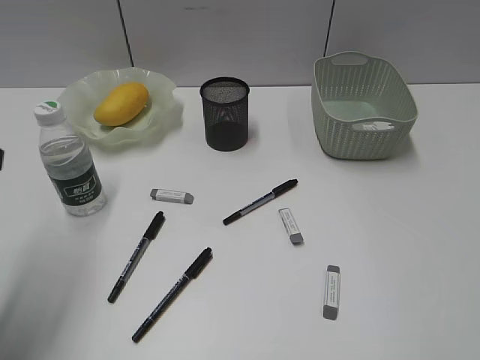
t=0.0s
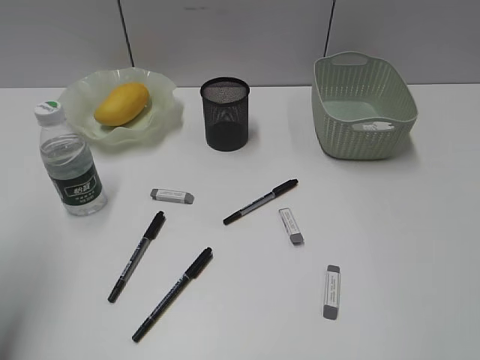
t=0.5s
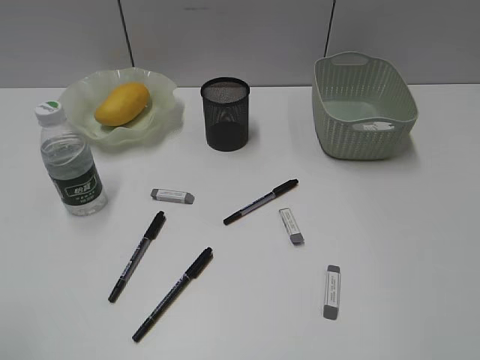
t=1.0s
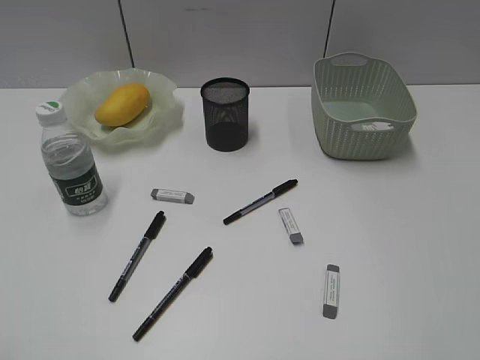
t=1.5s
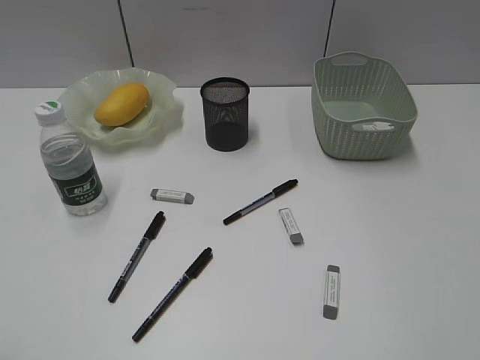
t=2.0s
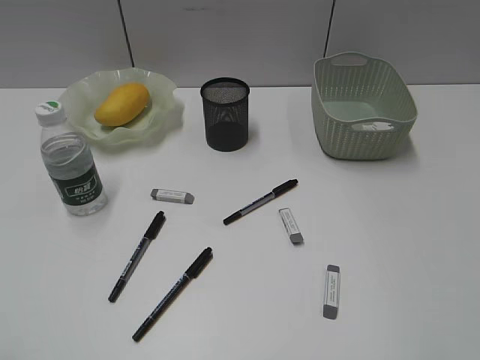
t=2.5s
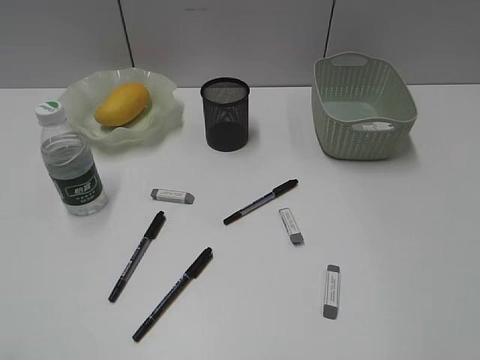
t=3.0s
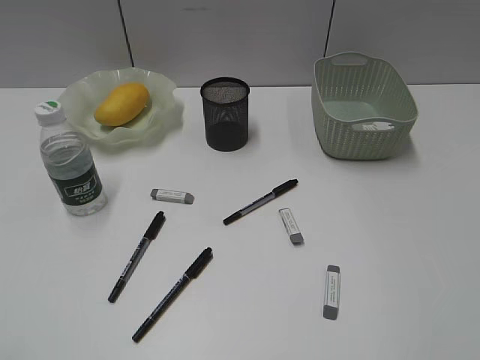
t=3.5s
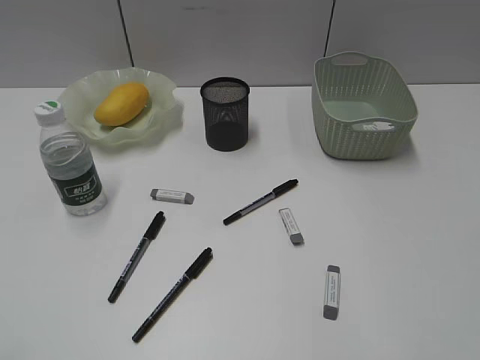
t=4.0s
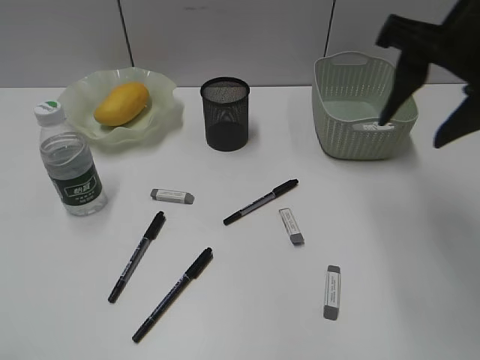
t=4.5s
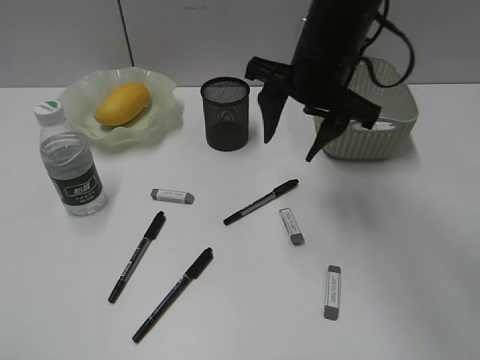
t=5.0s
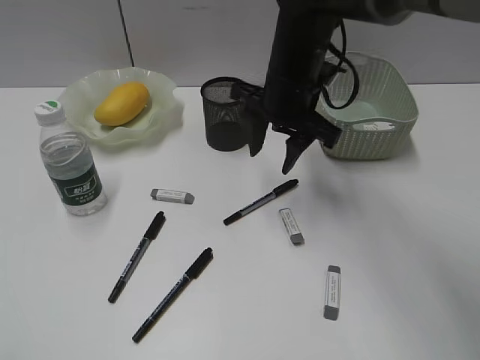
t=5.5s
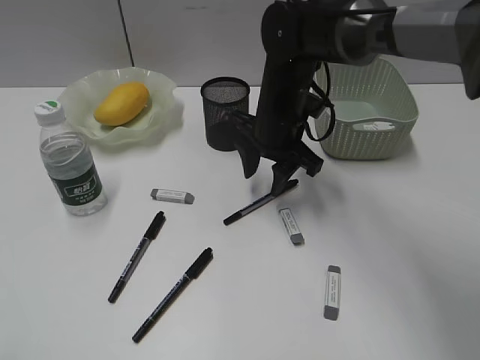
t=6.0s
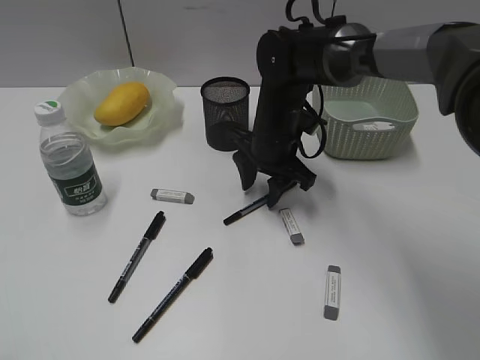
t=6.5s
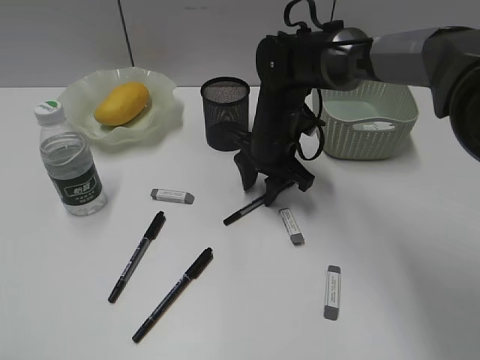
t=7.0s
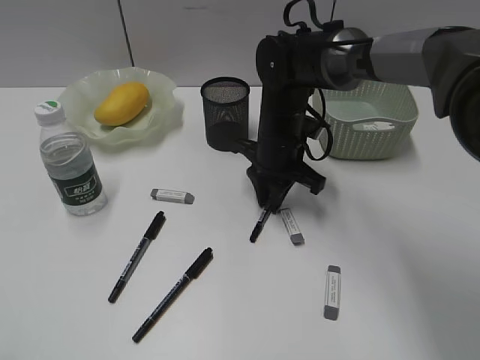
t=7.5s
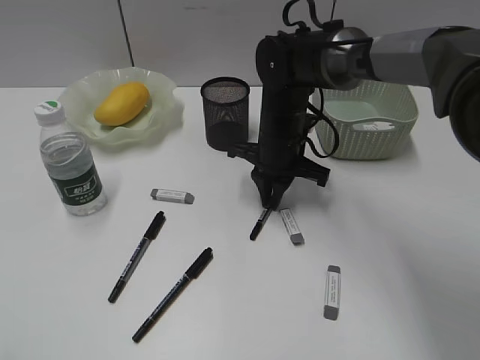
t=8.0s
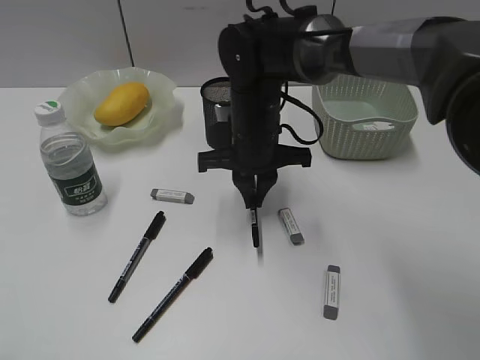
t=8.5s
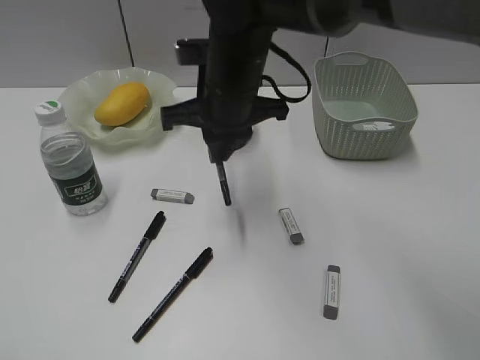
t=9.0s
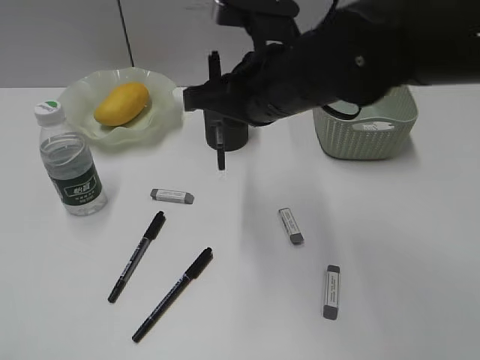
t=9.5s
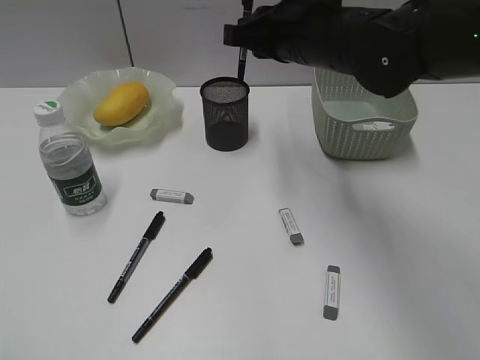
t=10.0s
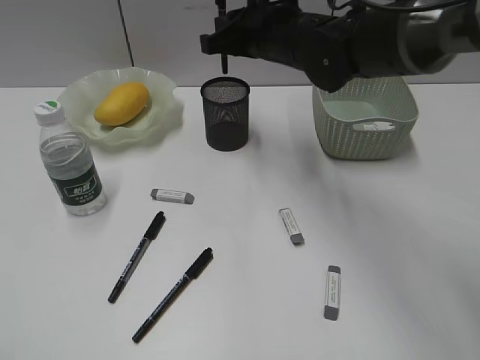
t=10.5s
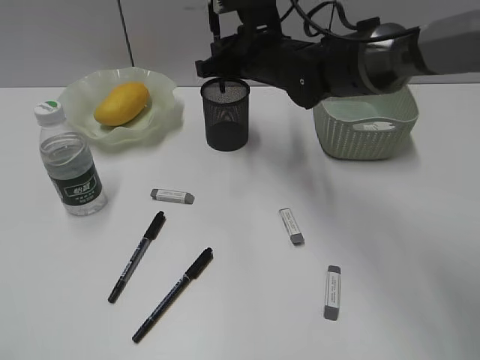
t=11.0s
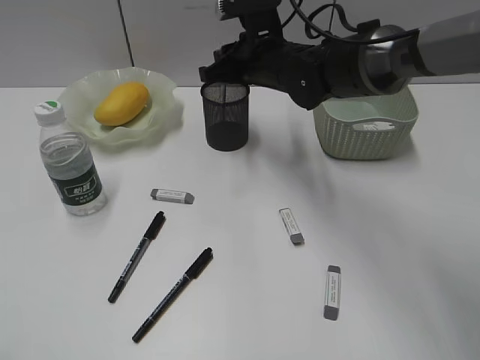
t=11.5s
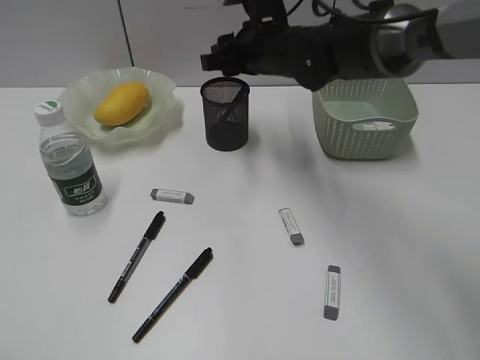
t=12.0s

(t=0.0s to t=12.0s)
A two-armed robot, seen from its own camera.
Step, t=0.0s - t=7.5s: Grasp the black pen with right gripper.
Step, t=8.0s - t=11.5s: Place the black pen in pen holder with right gripper.
t=0.0s - t=2.0s: The left gripper heads backward, covering roughly 20 cm.
t=4.0s - t=6.0s: The right gripper is displaced to the left, forward and downward by about 40 cm.
t=6.0s - t=8.0s: The right gripper closes its fingers.
t=8.0s - t=10.0s: The right gripper goes some 15 cm upward.
t=10.0s - t=12.0s: The right gripper goes roughly 10 cm forward and downward, and opens up.

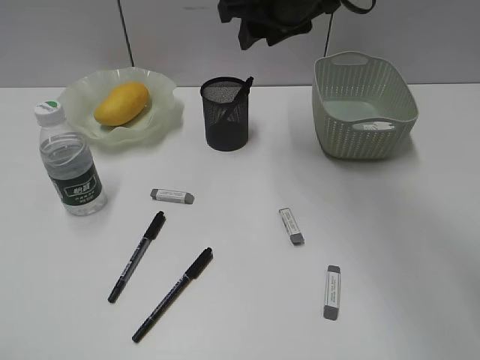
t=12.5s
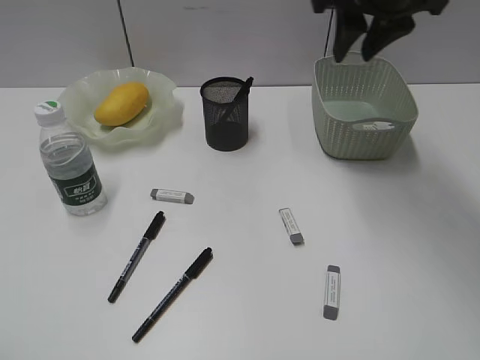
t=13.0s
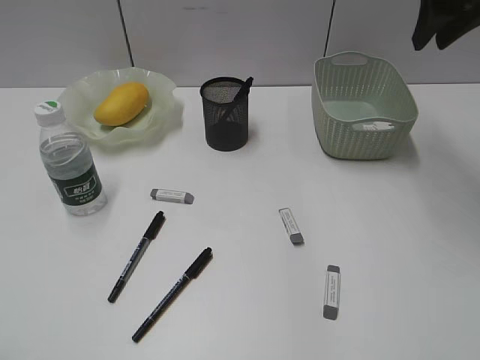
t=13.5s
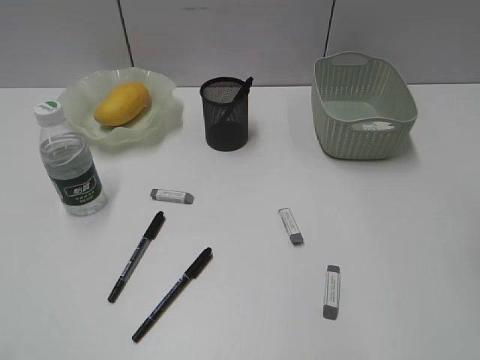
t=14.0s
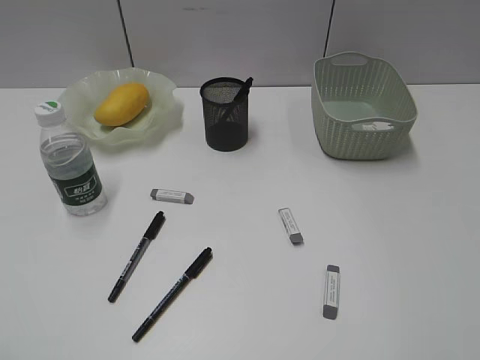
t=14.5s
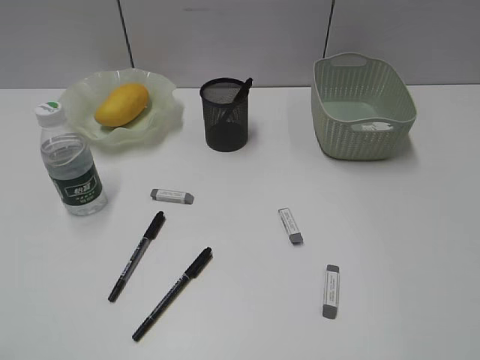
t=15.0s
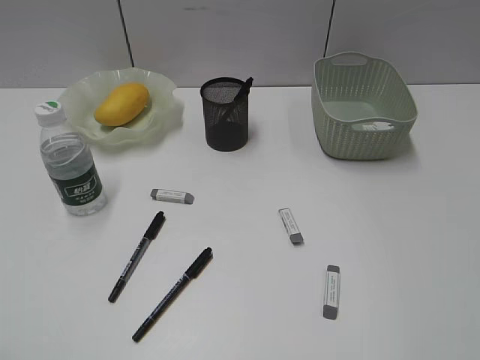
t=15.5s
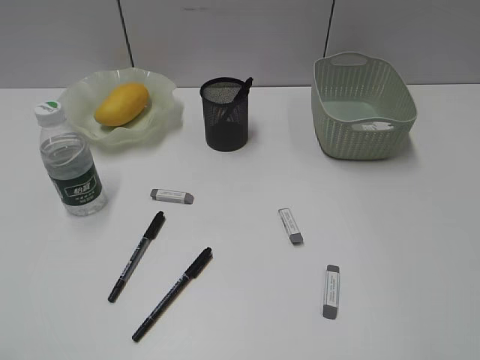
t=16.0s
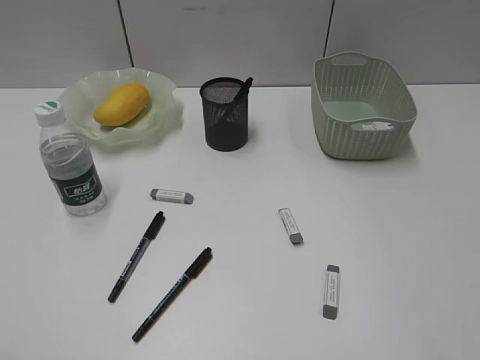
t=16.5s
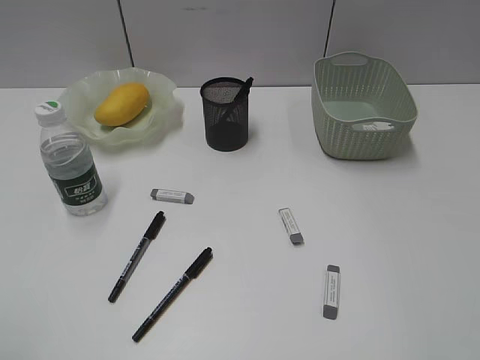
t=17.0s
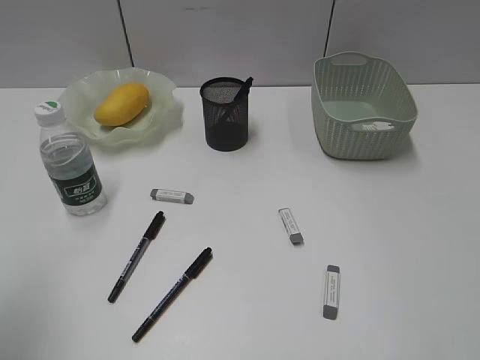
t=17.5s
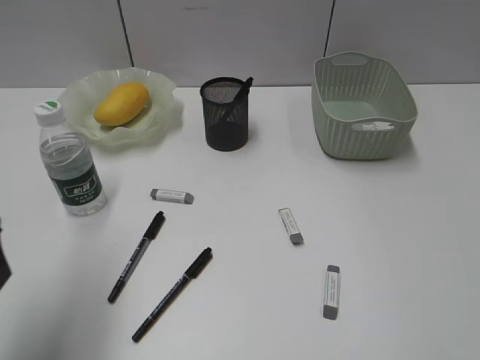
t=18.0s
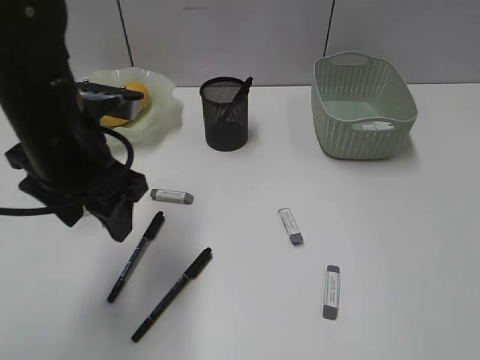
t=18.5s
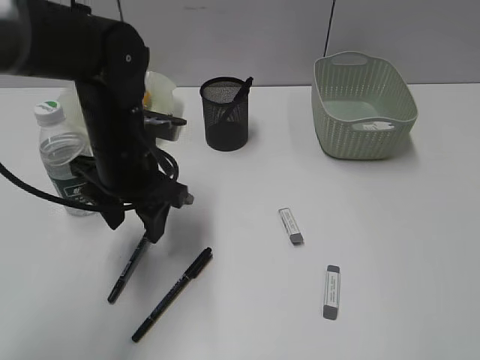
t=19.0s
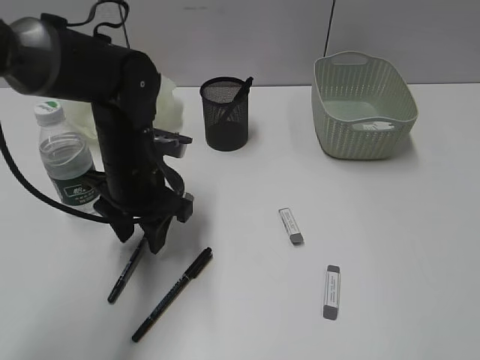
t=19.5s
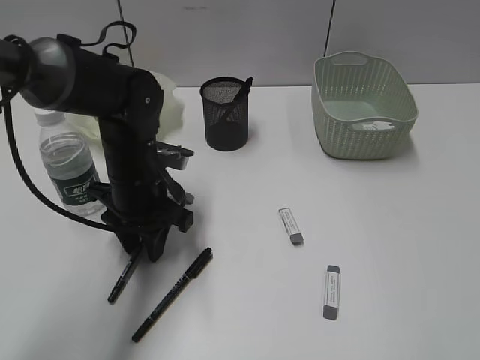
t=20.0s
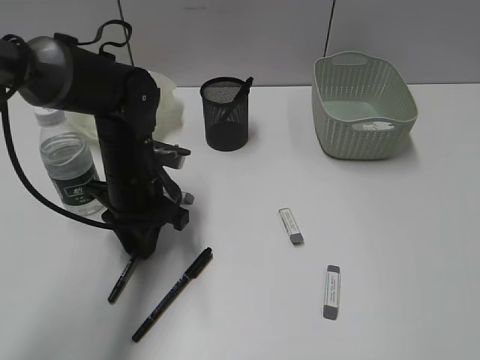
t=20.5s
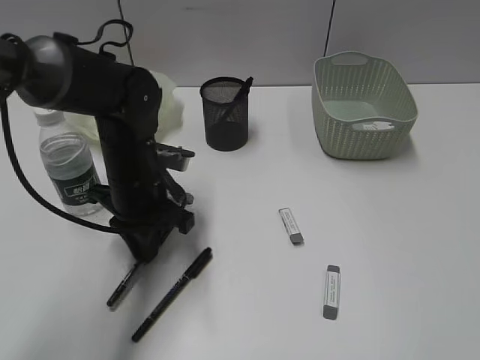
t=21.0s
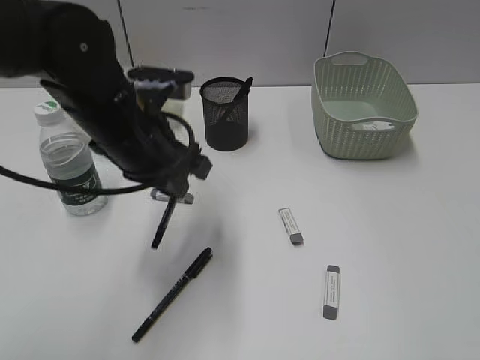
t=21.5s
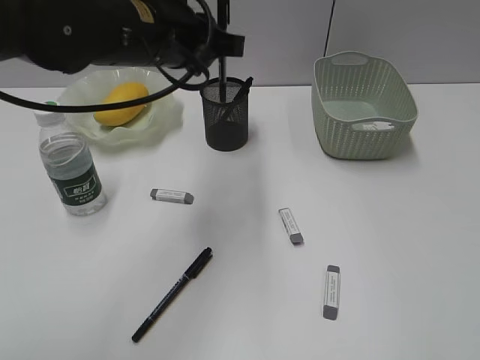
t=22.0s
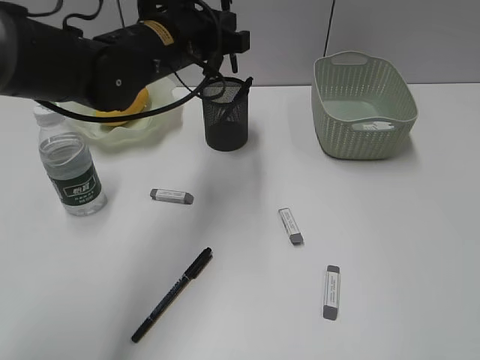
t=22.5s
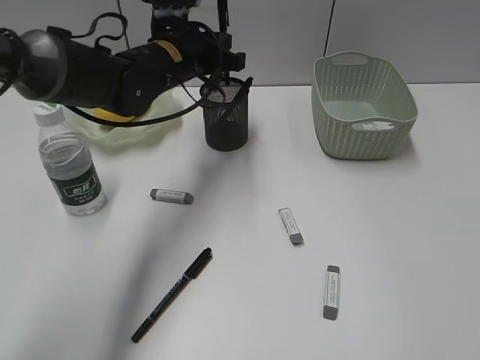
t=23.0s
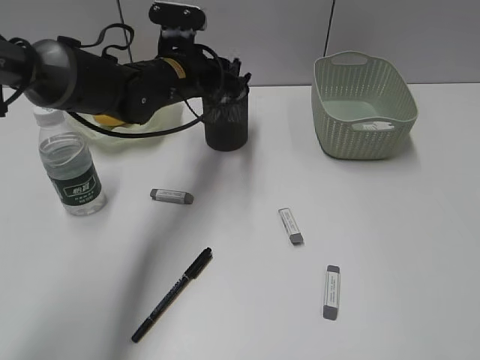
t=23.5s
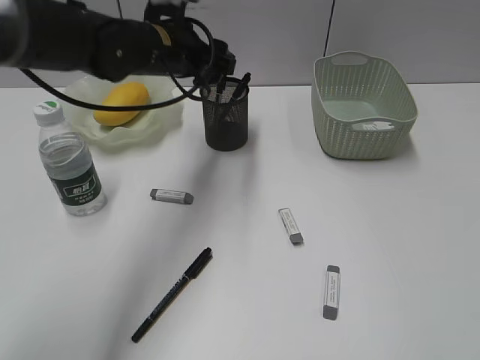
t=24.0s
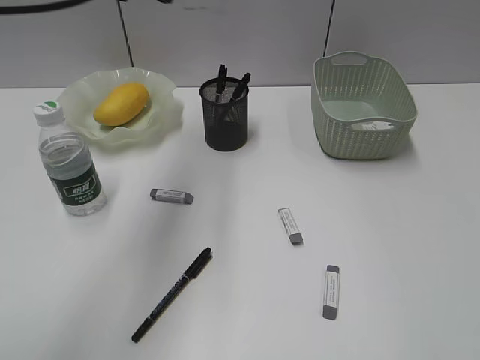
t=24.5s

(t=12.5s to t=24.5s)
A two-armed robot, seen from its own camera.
Step, t=12.5s - t=20.5s: Grasp the black pen with left gripper.
Step, t=21.0s - t=23.5s: Place the black pen in pen holder with left gripper.
t=12.5s - t=14.5s: The right gripper heads backward and to the right, covering approximately 40 cm.
t=16.5s - t=18.5s: The left gripper goes some 30 cm forward and to the right, and opens up.
t=18.5s - t=20.5s: The left gripper is displaced downward and forward by approximately 15 cm, and closes.
t=20.5s - t=22.5s: The left gripper is displaced upward by some 15 cm.
t=22.5s - t=24.5s: The left gripper shifts approximately 10 cm upward and to the left, and opens its fingers.

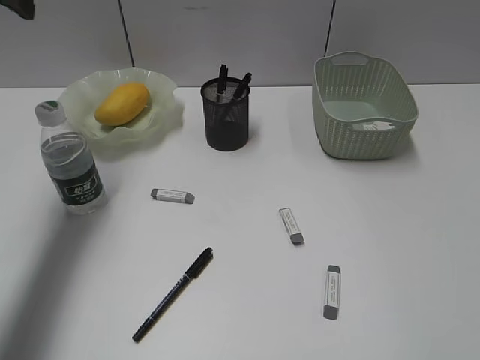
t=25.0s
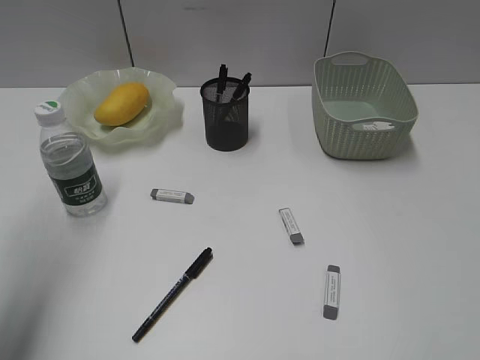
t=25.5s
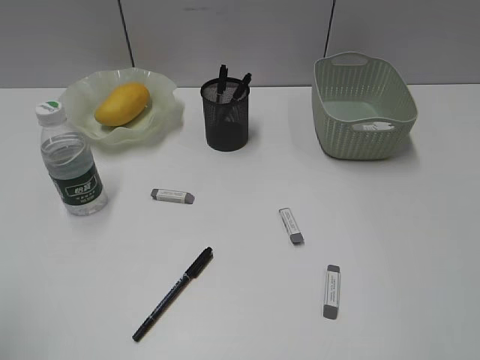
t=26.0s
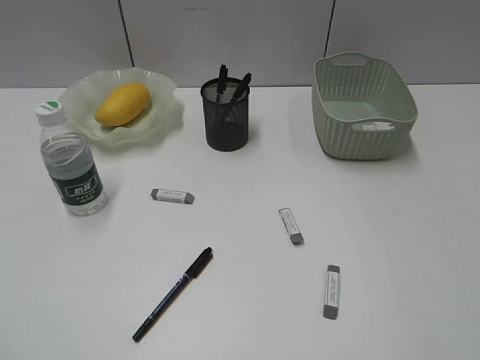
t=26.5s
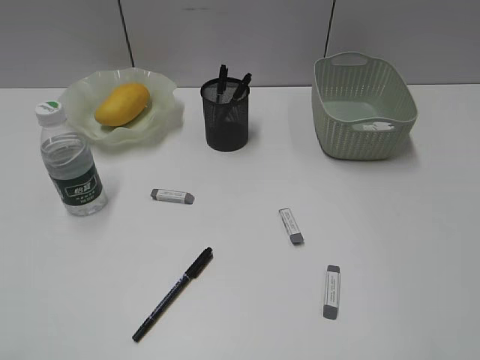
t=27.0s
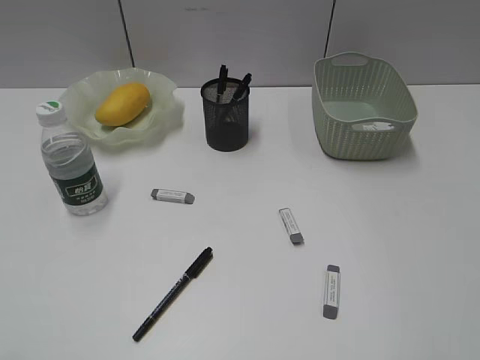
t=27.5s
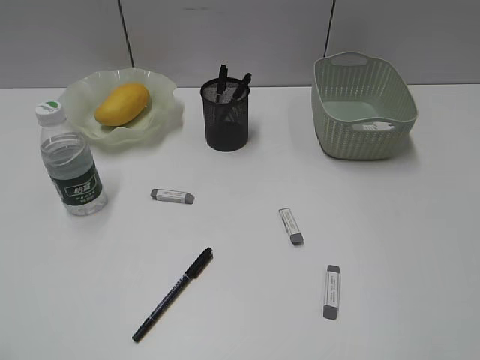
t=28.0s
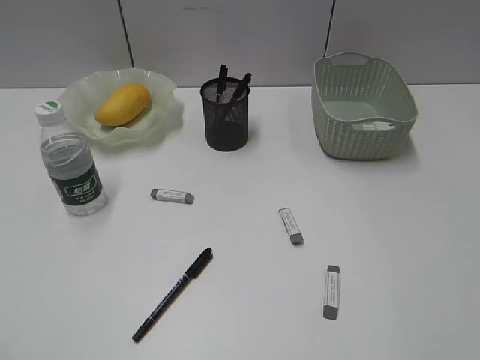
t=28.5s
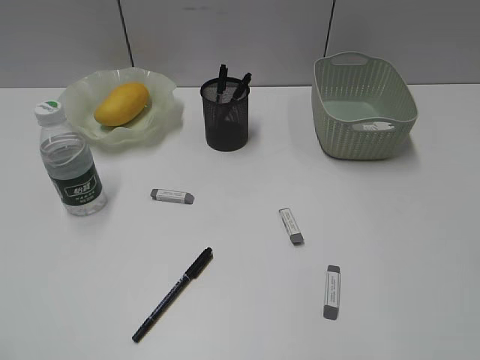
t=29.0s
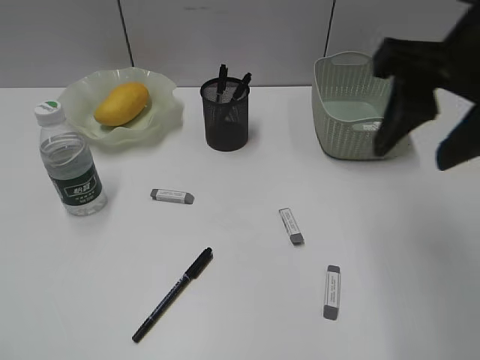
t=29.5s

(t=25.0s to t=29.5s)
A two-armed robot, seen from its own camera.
t=25.0s - t=27.0s: The left gripper heads backward, covering some 40 cm.
t=27.0s - t=29.5s: The right gripper shifts about 25 cm forward and to the left.
